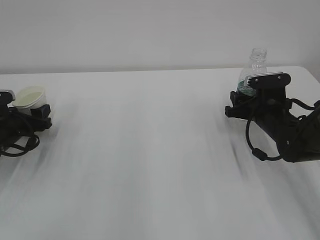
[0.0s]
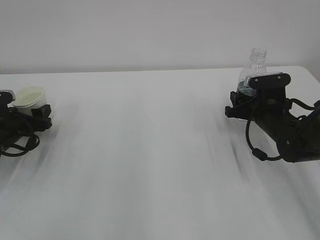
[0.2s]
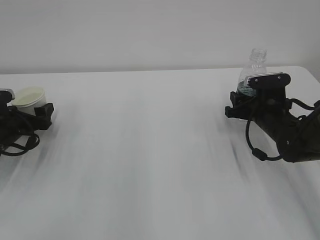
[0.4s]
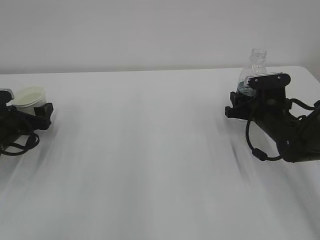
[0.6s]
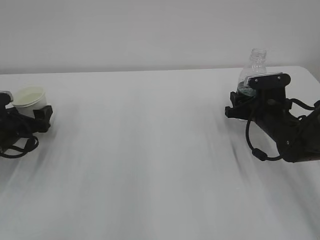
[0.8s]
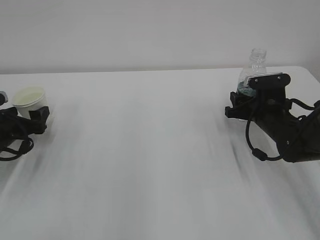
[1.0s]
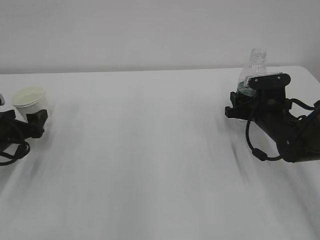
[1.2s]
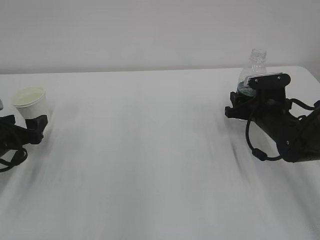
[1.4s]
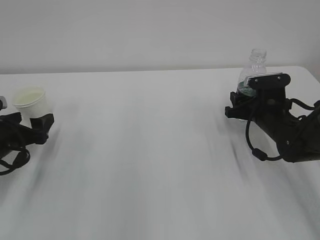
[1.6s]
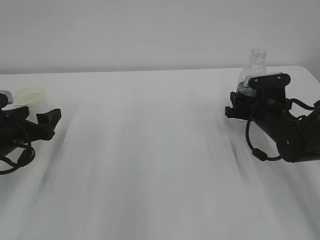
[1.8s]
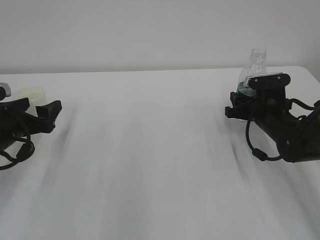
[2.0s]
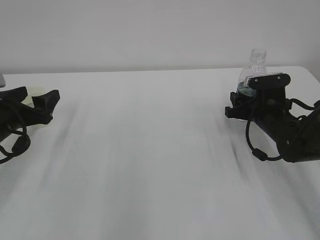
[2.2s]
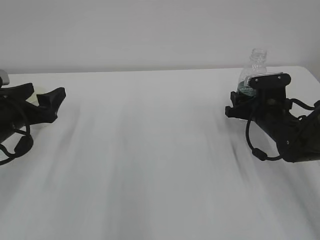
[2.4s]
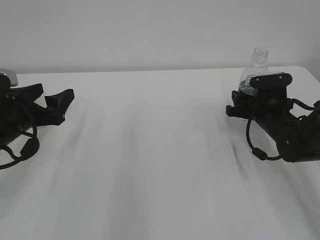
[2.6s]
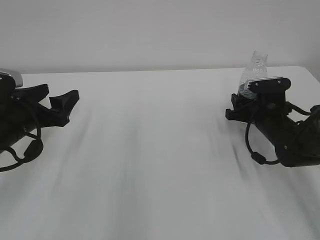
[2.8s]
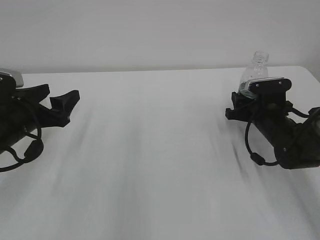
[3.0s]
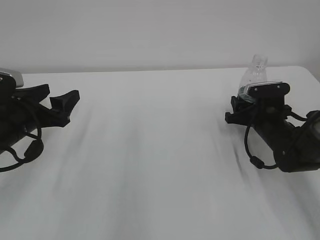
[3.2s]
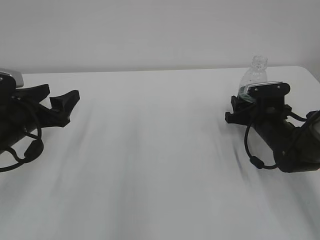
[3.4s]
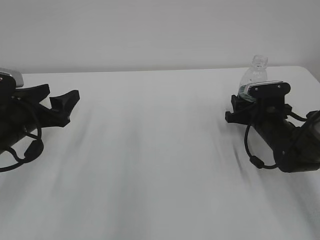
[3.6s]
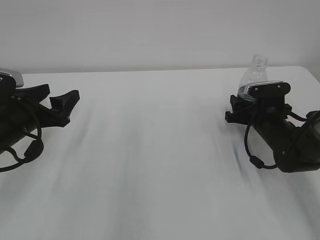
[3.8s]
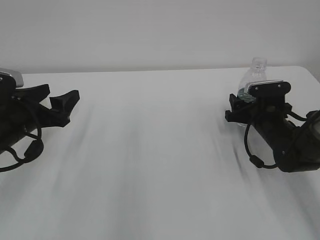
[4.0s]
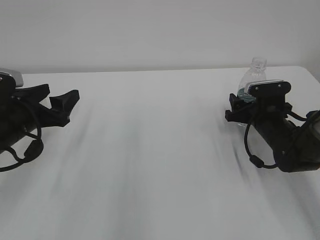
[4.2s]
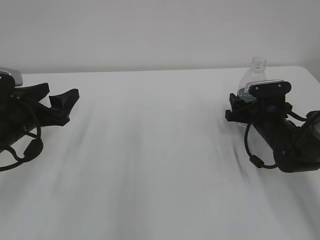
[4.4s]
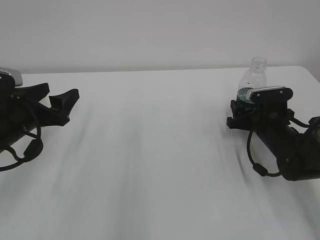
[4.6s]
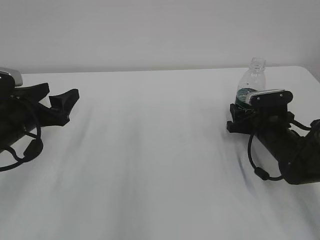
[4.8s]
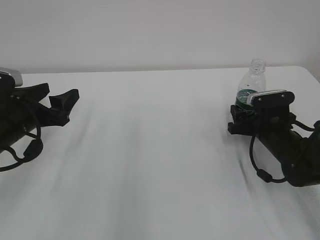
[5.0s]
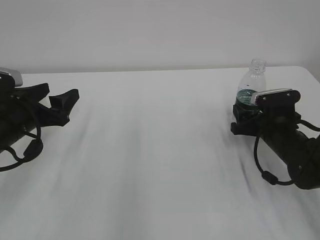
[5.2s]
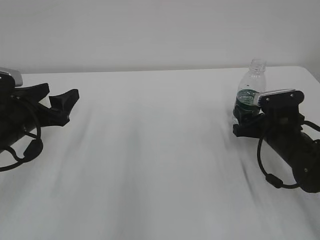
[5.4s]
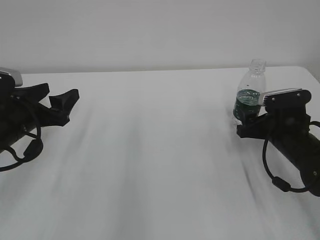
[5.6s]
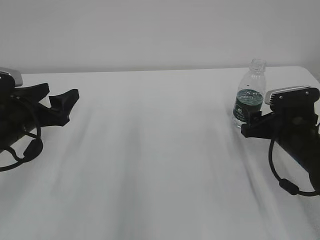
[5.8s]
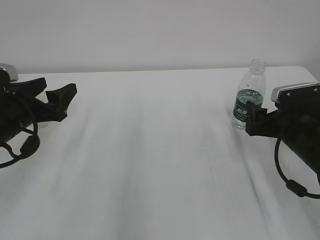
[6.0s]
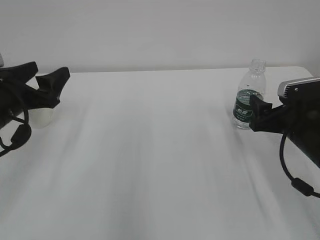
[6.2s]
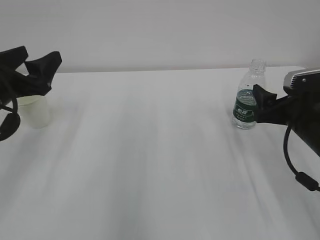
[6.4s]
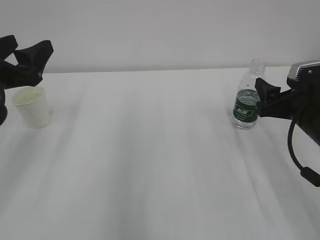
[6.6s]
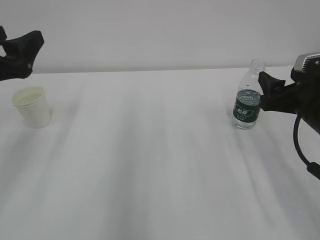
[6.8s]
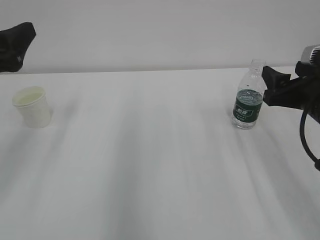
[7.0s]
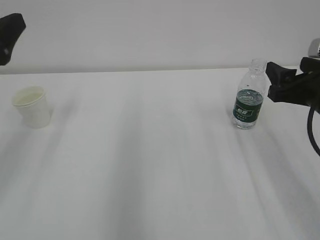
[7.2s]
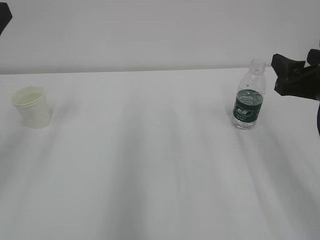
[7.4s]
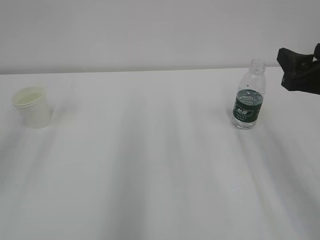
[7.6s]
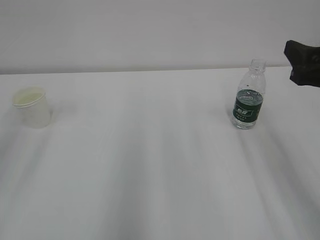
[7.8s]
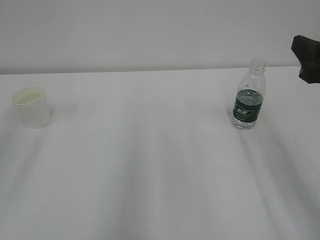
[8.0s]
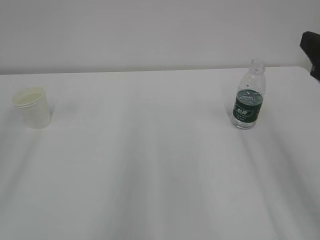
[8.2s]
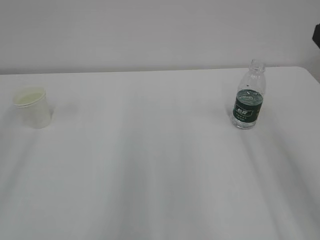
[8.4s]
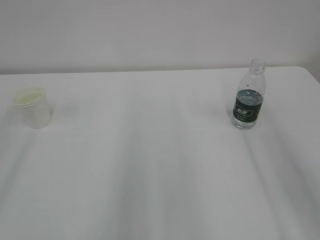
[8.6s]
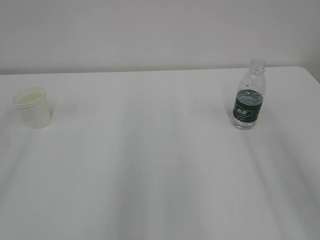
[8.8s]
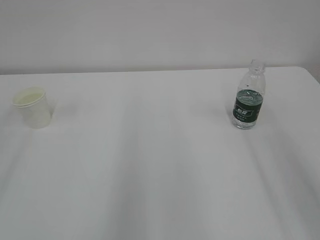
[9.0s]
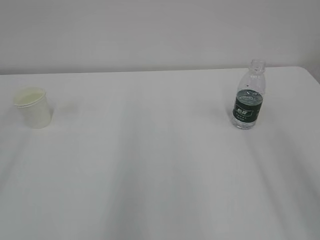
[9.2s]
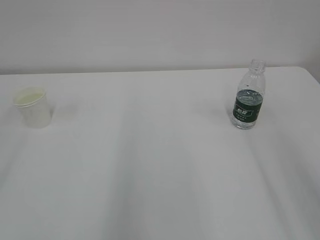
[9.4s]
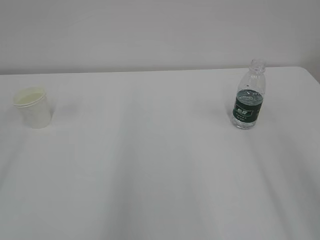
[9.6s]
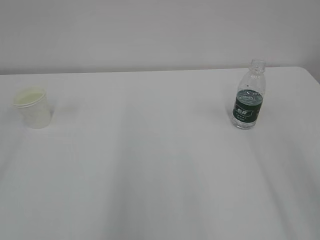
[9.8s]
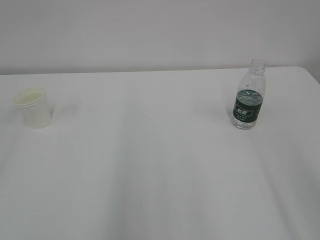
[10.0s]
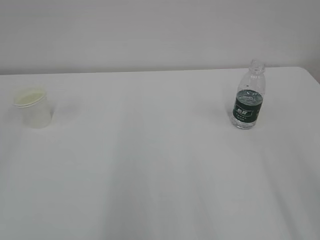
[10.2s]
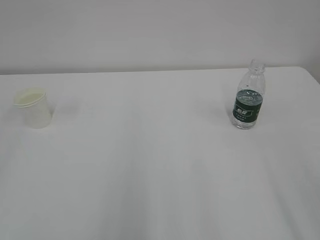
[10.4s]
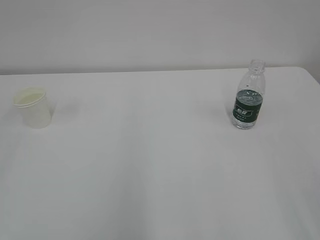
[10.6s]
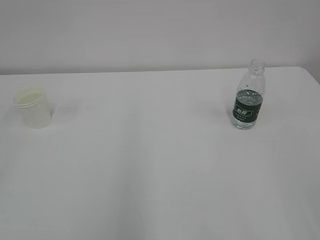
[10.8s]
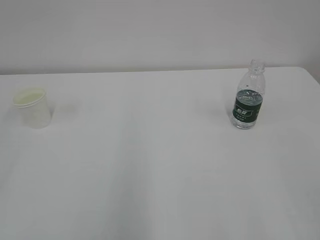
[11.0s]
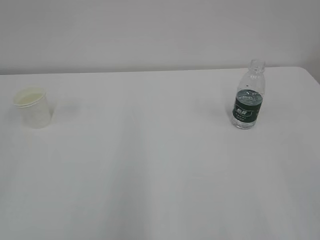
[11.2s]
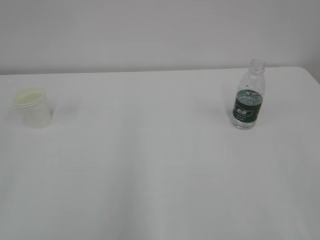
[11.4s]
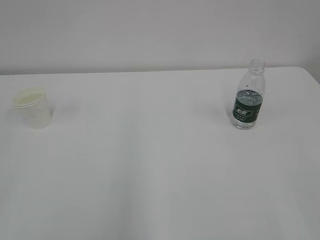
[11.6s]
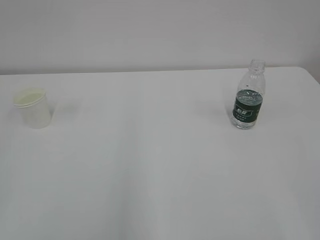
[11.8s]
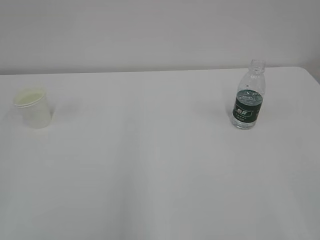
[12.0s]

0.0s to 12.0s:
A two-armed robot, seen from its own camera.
0.0s to 1.6s: The left gripper travels backward by roughly 5 cm, and opens.
1.6s to 3.0s: The left gripper is displaced to the right and upward by approximately 10 cm.
3.0s to 4.4s: The right gripper opens.
4.4s to 6.0s: The right gripper is displaced backward by some 10 cm.
6.0s to 7.6s: The left gripper goes about 20 cm upward and backward. The right gripper shifts some 15 cm upward.
7.6s to 9.0s: The right gripper moves backward and upward, about 15 cm.

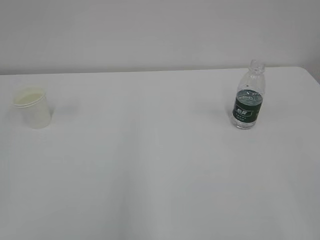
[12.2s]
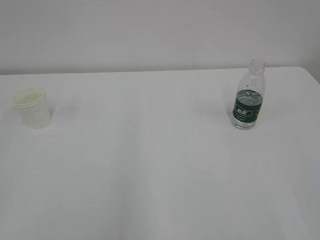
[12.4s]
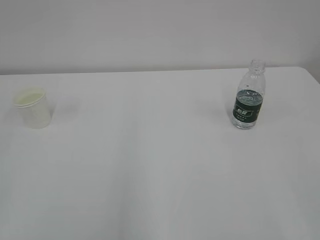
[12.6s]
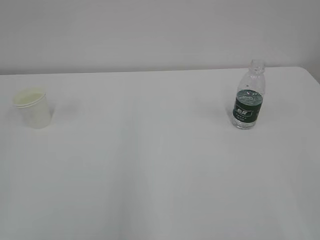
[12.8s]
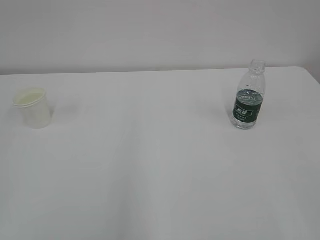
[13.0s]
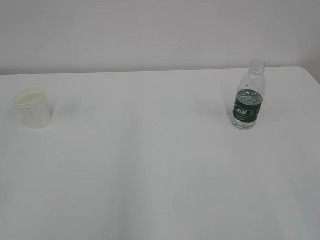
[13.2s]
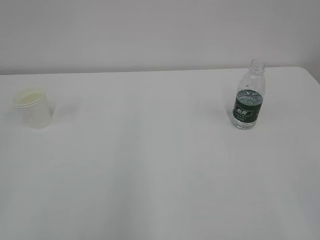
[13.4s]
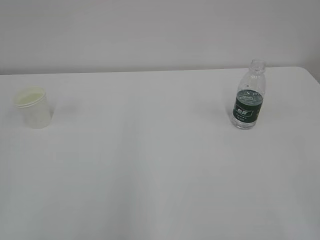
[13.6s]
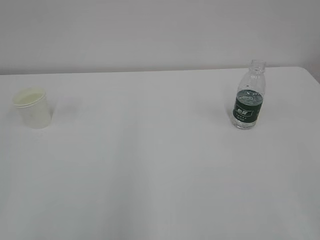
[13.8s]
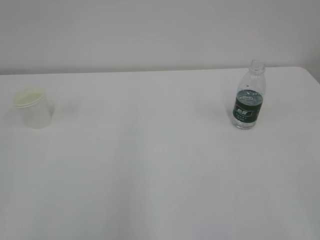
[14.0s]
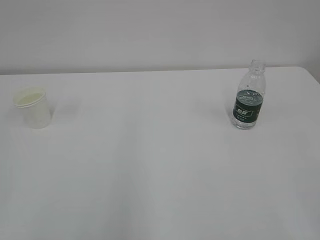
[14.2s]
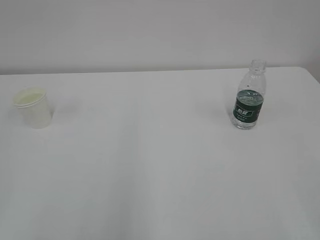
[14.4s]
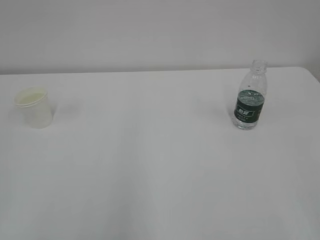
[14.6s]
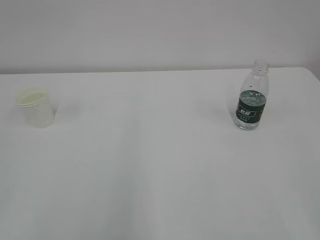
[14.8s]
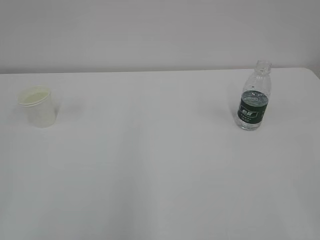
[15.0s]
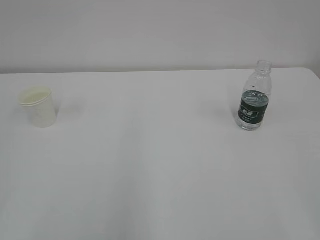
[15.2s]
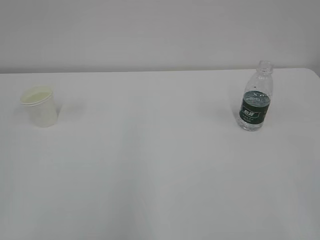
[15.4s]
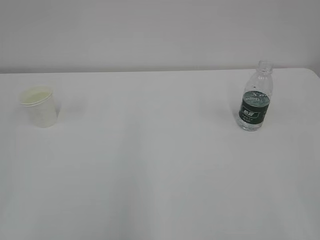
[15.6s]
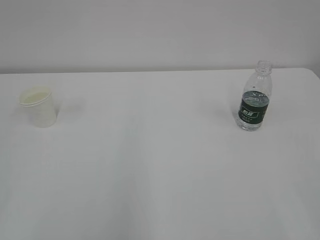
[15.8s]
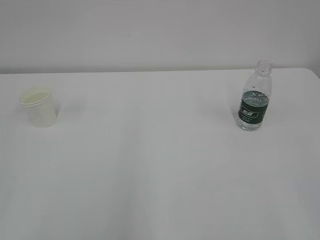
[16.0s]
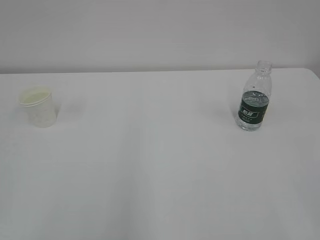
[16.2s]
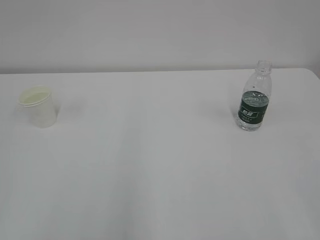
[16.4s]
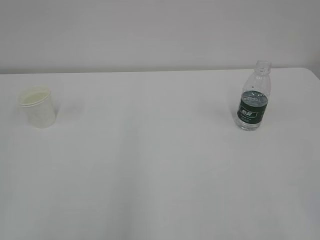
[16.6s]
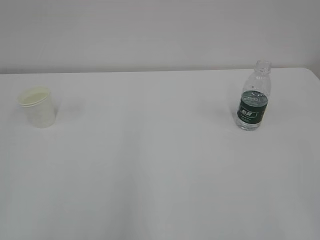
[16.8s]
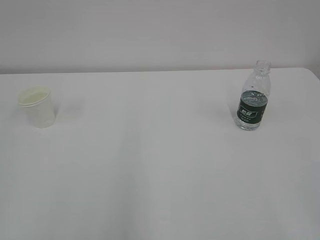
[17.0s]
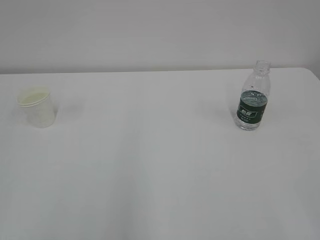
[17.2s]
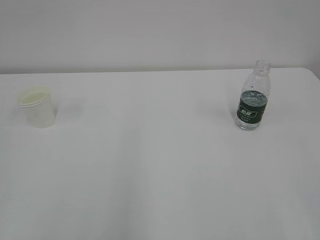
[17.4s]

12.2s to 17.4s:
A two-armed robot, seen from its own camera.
14.0s to 15.6s: Both grippers stay put.
